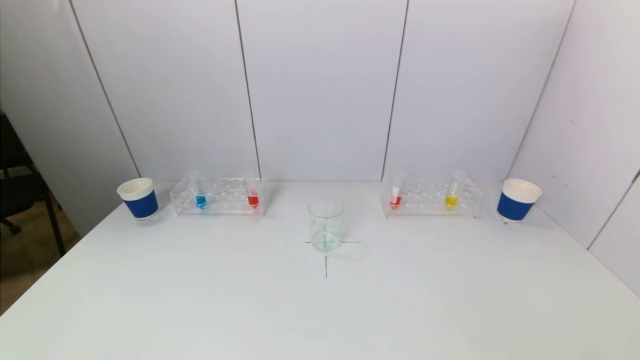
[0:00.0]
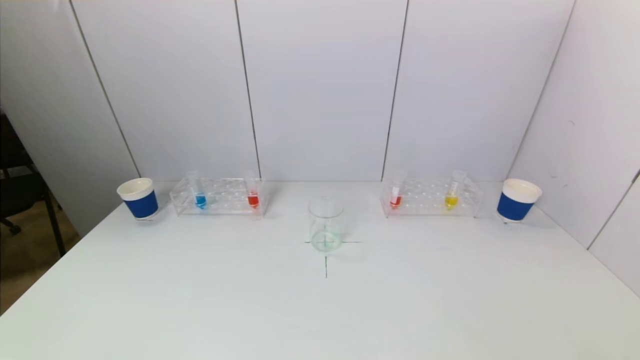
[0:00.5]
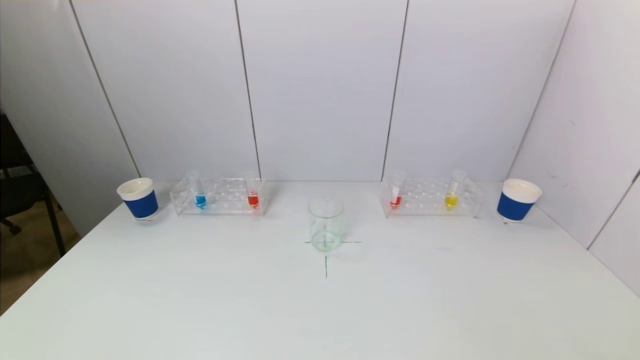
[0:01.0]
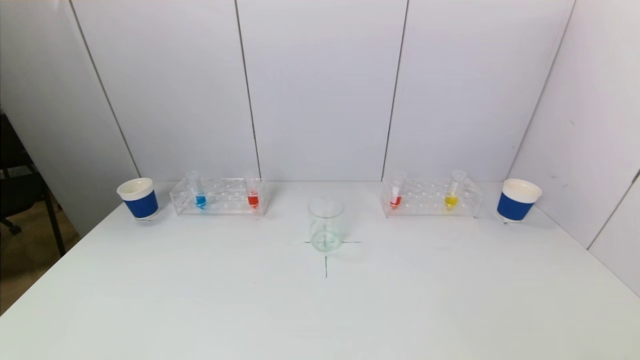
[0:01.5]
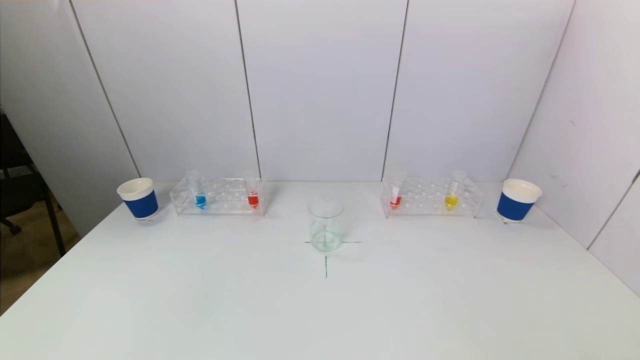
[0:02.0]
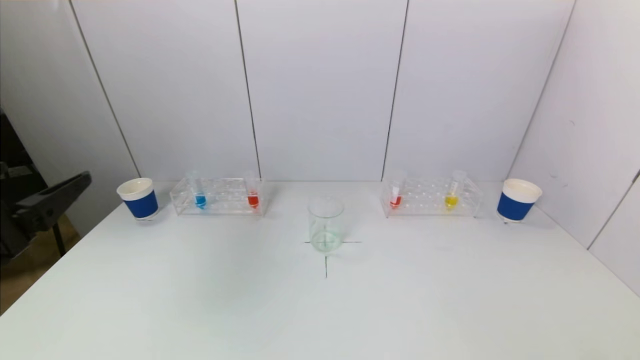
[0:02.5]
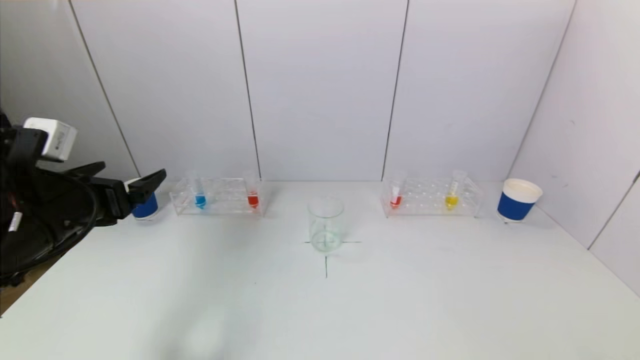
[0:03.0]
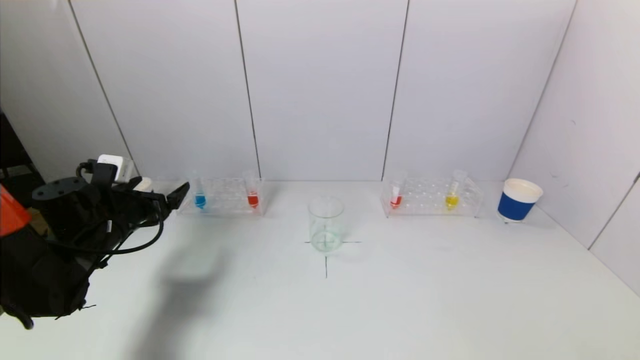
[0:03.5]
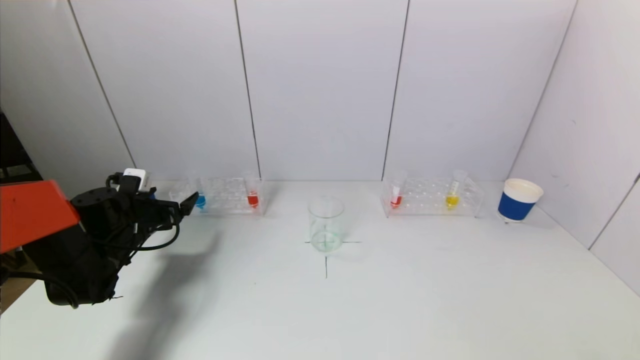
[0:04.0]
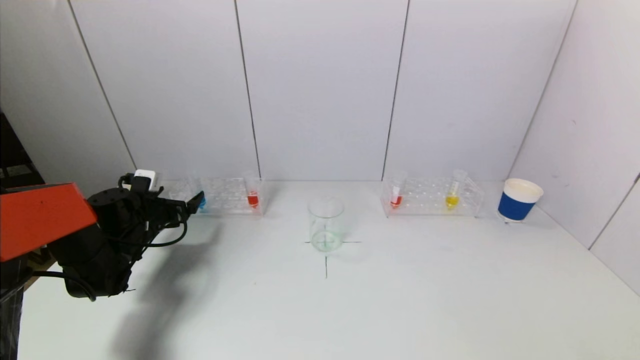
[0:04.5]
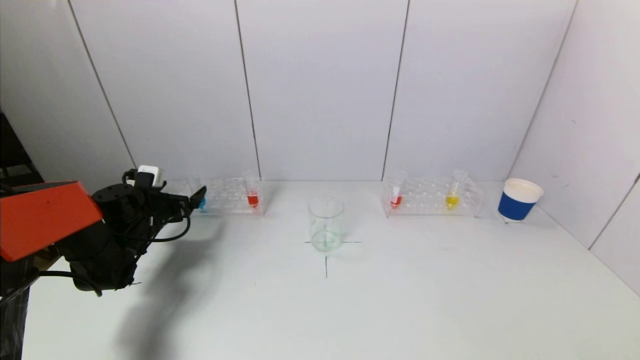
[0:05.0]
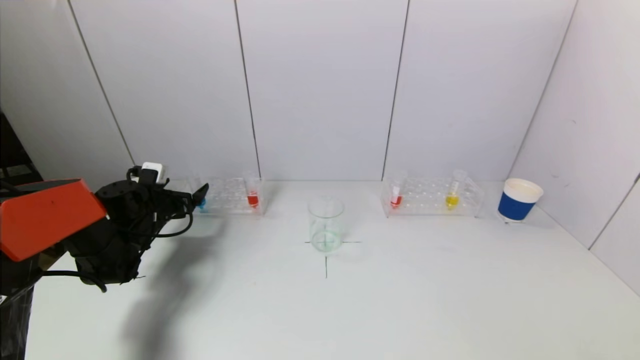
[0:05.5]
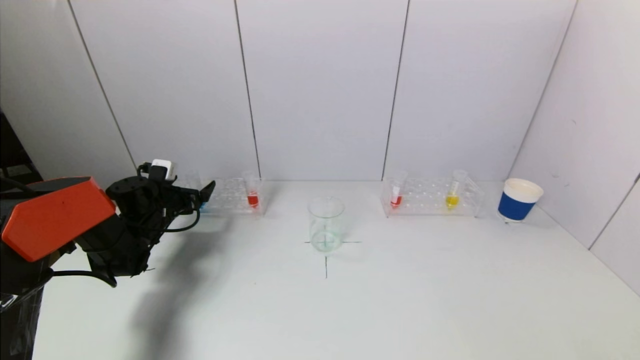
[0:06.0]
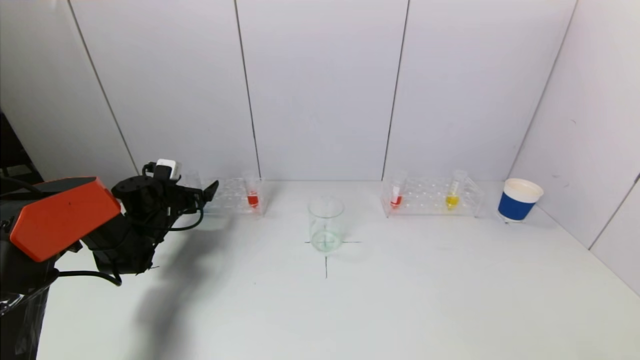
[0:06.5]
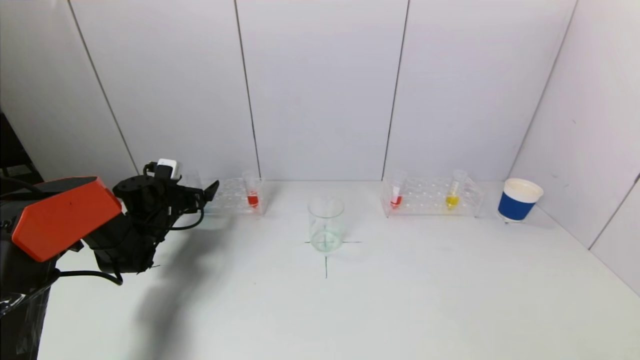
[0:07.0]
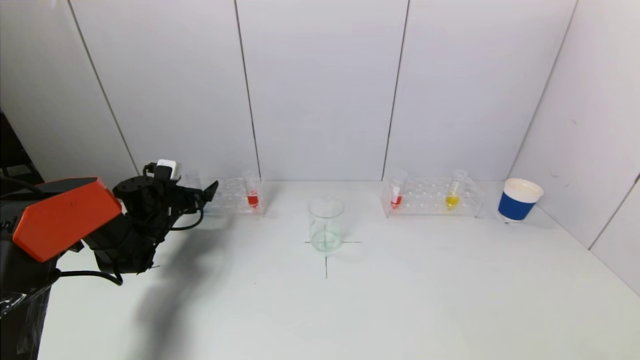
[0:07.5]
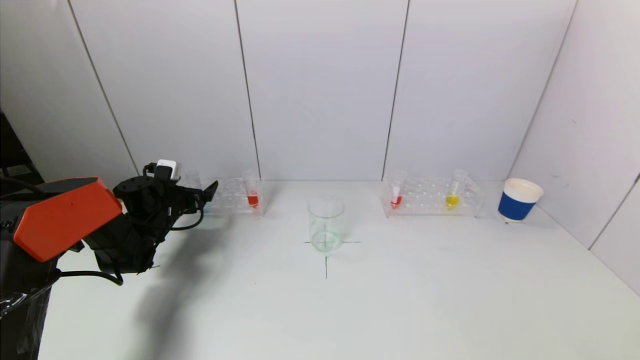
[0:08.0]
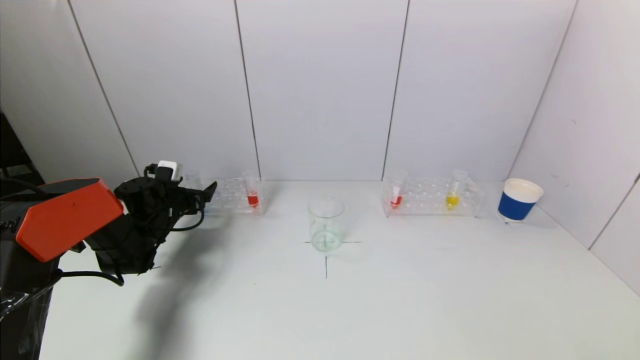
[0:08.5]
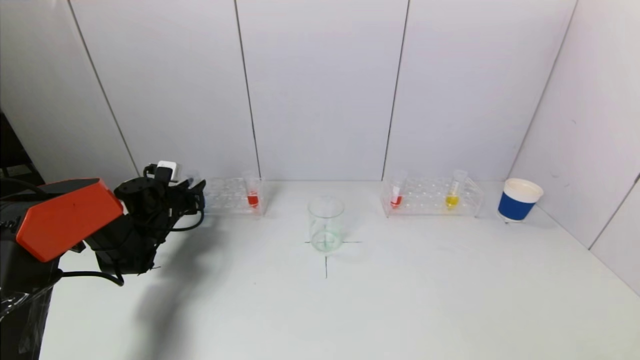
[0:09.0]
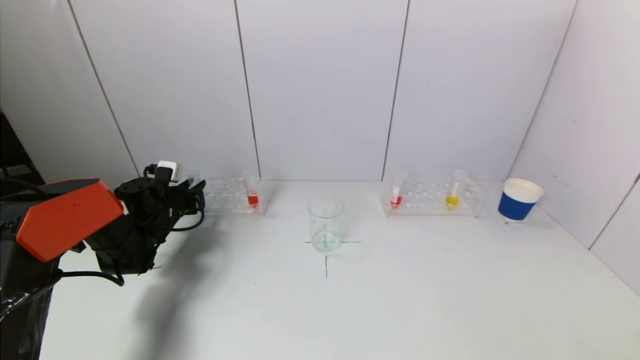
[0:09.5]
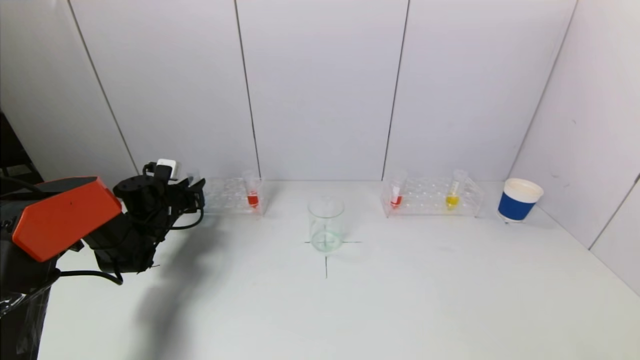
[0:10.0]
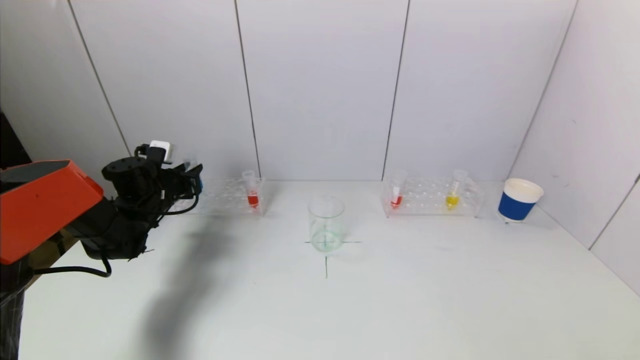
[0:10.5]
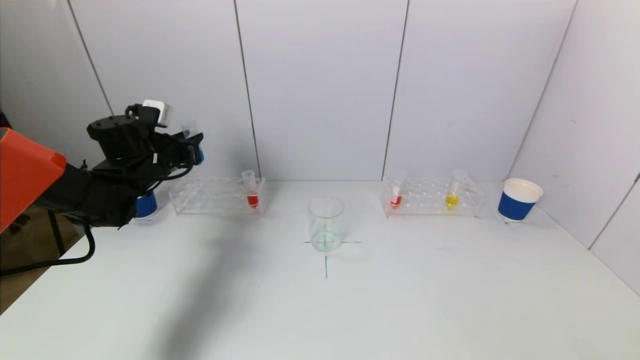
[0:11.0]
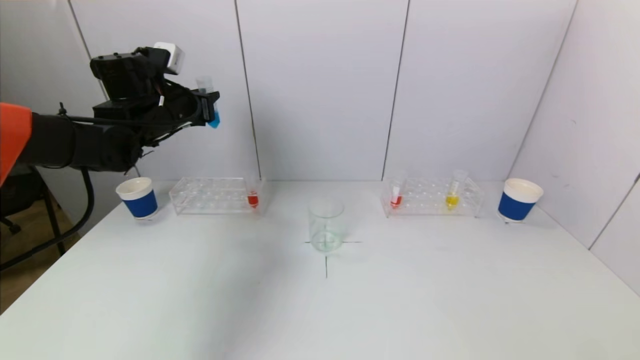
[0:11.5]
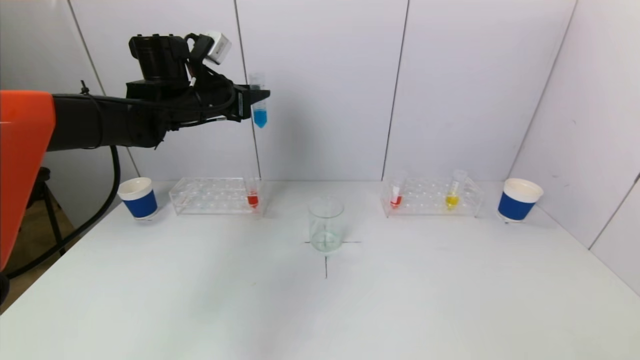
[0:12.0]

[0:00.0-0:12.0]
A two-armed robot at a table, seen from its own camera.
Task of the whole recording: pick up a test tube with pigment on left test tube rack and a test tube with pigment on right test tube rack by grippers and pour them into the beaker.
Step, 0:00.0 to 0:09.0: Grasp the blue reagent with the left gripper.
0:02.0 to 0:04.0: The left gripper shifts some 35 cm forward.
0:04.0 to 0:06.0: The left gripper moves forward, roughly 5 cm.
0:06.0 to 0:08.0: Both grippers stay put.
0:10.0 to 0:12.0: The left gripper heads upward and to the right, covering approximately 25 cm.

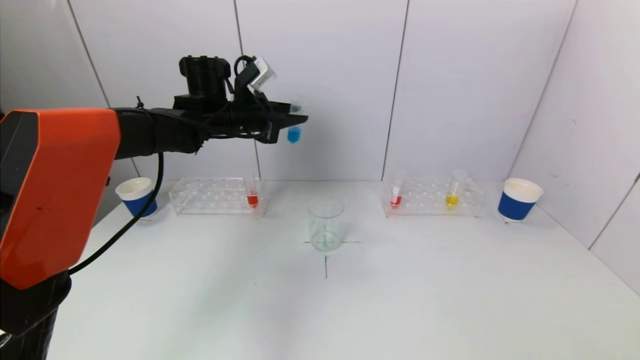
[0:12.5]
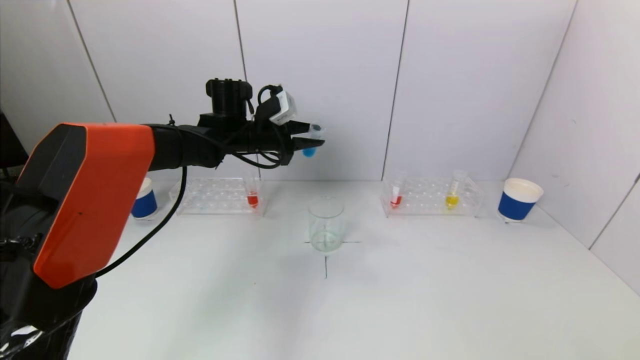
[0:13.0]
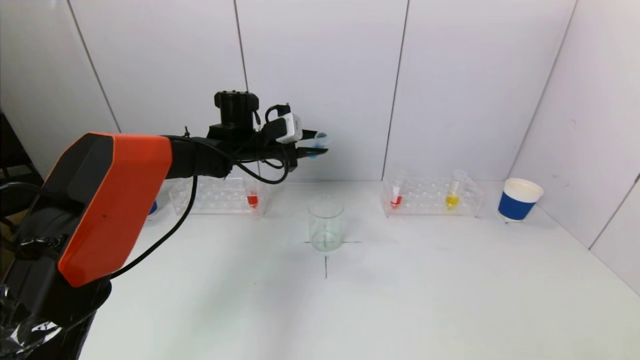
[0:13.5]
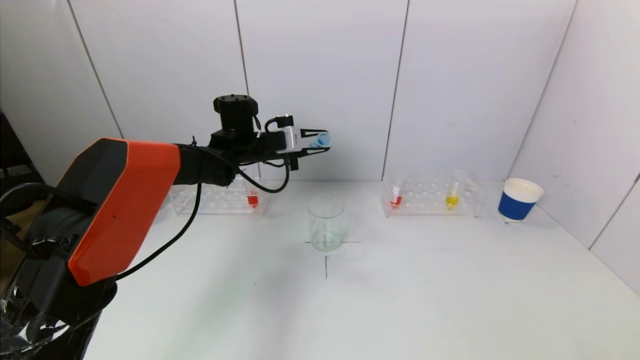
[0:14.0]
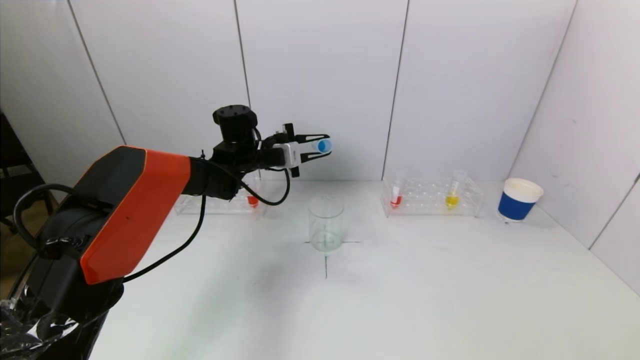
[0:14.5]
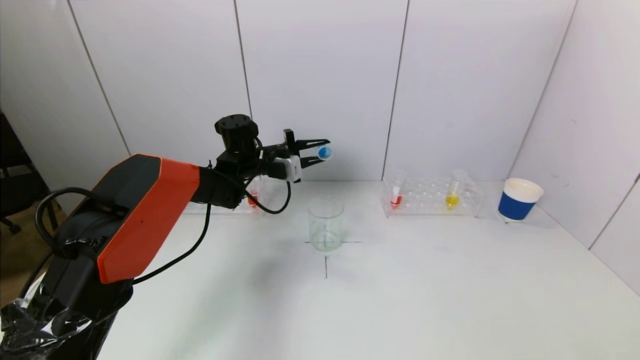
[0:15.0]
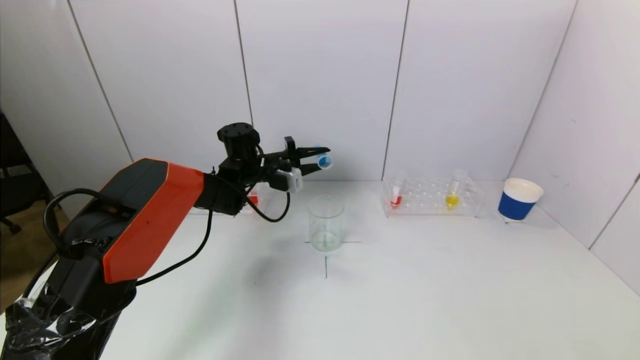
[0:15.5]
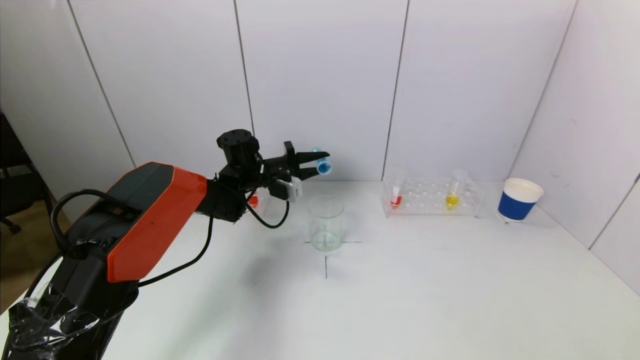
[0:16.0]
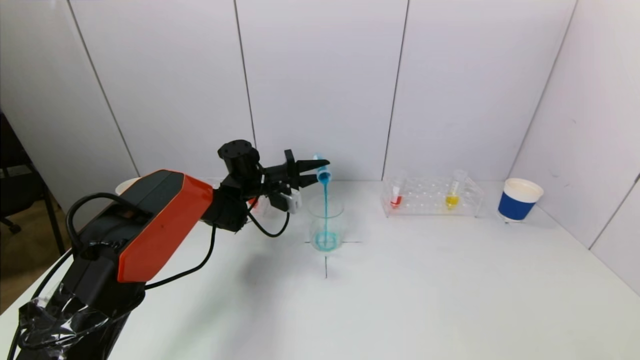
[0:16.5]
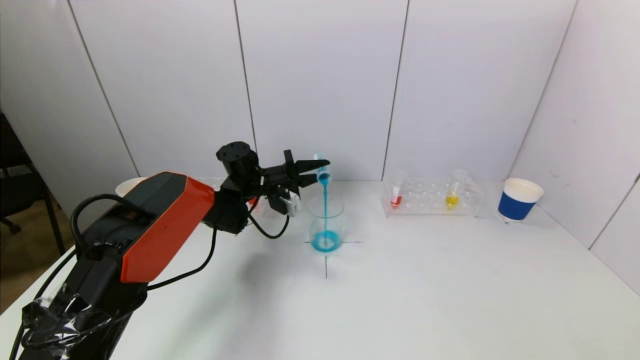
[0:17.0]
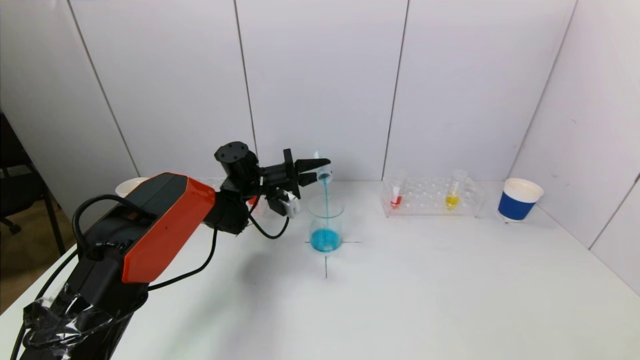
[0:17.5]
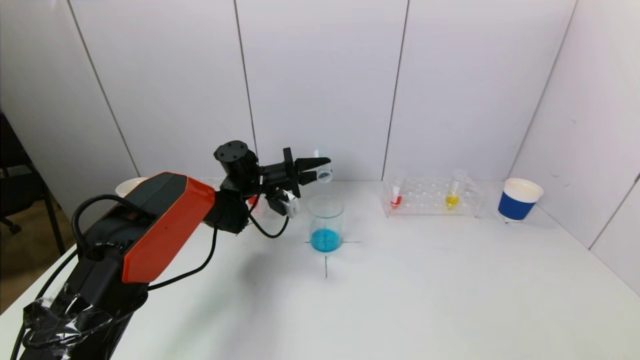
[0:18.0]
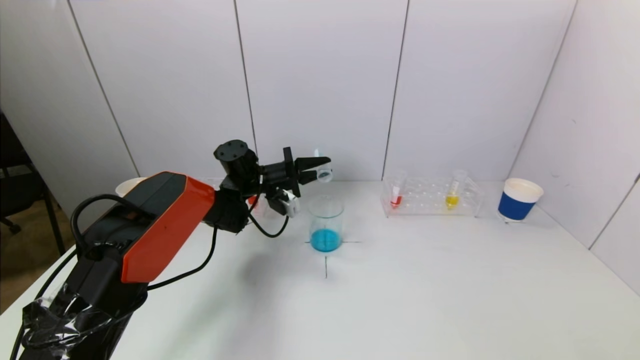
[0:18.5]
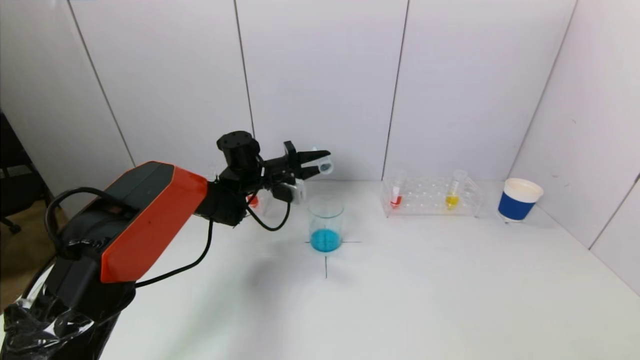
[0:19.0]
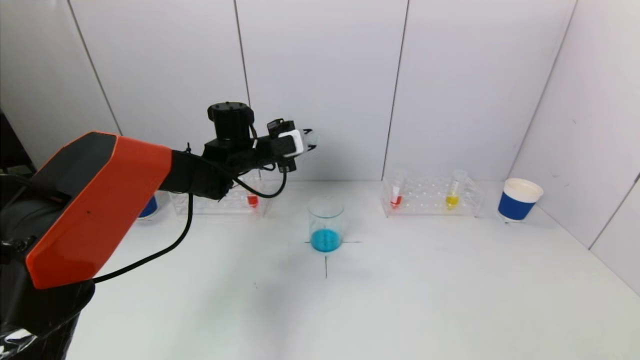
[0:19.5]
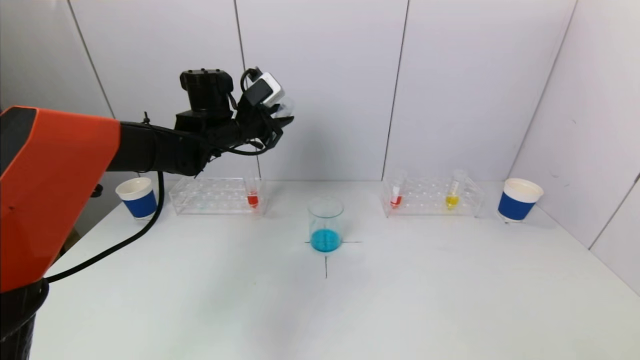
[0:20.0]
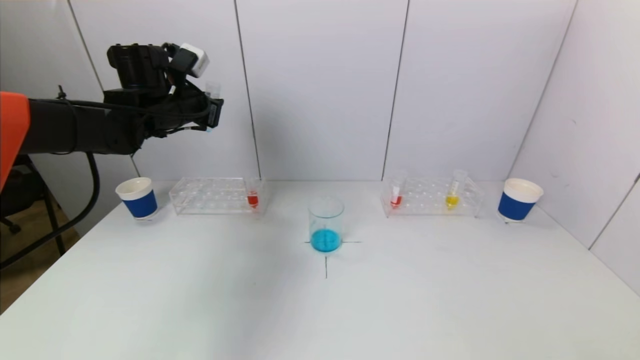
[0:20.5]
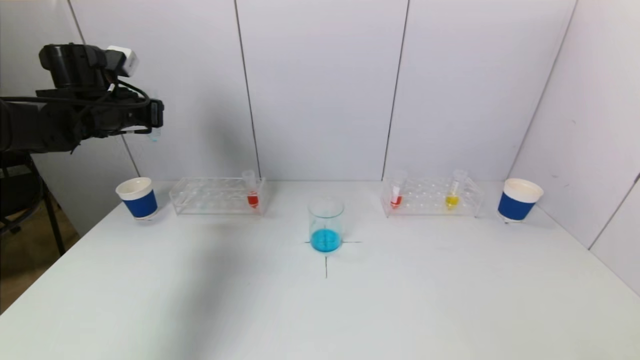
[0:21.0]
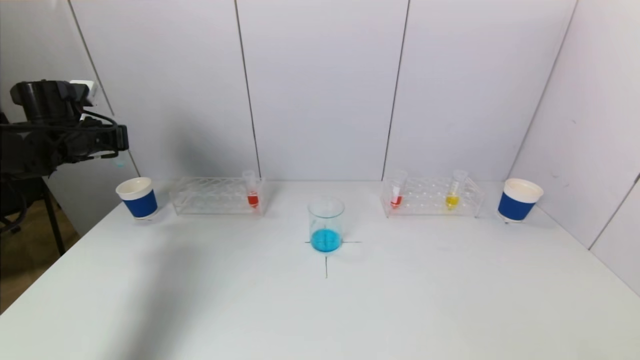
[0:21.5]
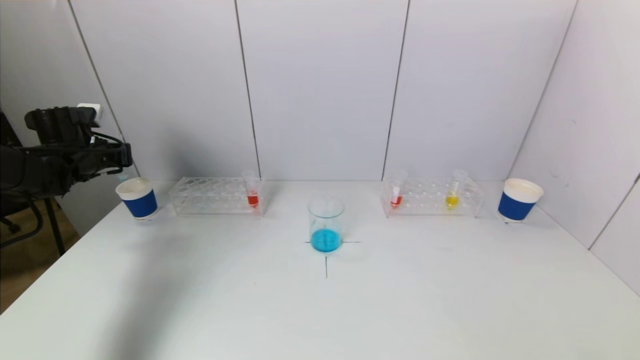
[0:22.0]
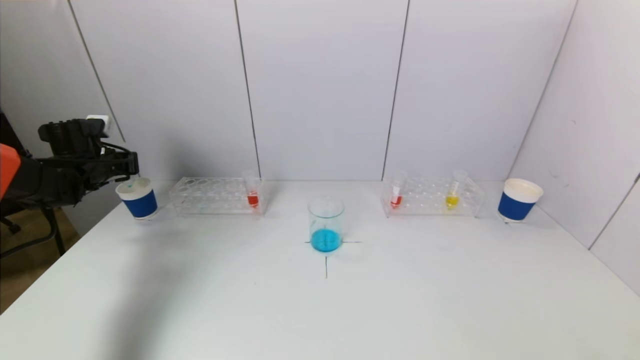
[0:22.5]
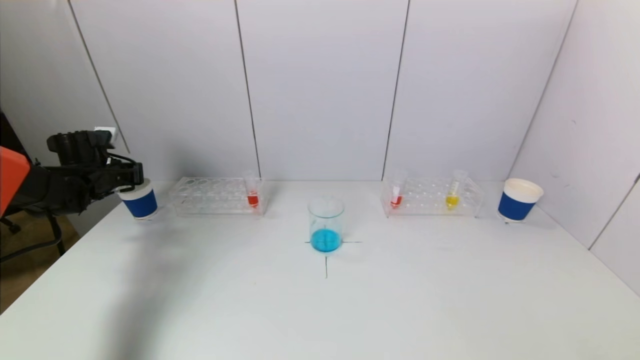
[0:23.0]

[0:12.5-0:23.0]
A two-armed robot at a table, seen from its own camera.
Task of the whole recording: pick up a test tube with pigment on left test tube rack and a test tube with pigment on right test tube rack by grippers and pour them into the beaker.
Step, 0:12.5 to 0:18.5: Pour the blue reagent into the graduated cylinder with the left gripper.
0:12.5 to 0:14.5: The left gripper shifts some 10 cm downward.
0:14.5 to 0:16.5: The left gripper goes about 5 cm downward.
0:16.5 to 0:19.0: The grippers move only a little.
0:19.0 to 0:21.0: The left gripper moves to the left and upward, some 25 cm.
0:21.0 to 0:23.0: The left gripper heads downward and to the left, covering some 15 cm.
